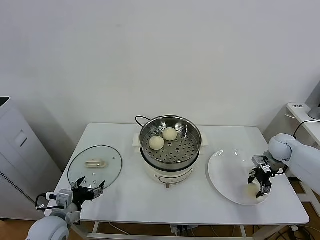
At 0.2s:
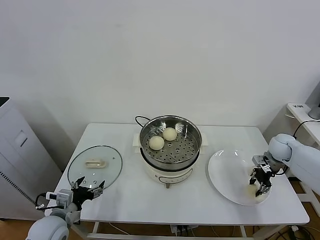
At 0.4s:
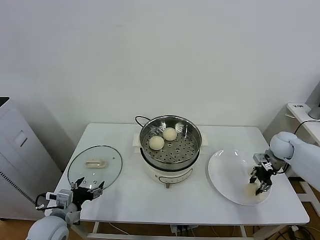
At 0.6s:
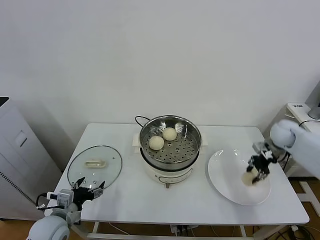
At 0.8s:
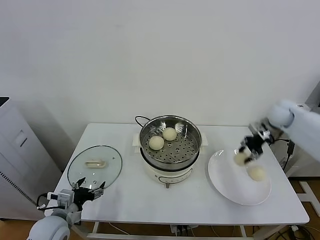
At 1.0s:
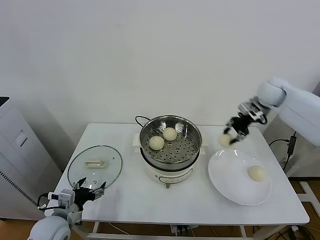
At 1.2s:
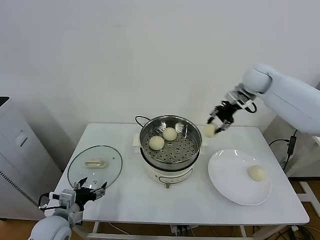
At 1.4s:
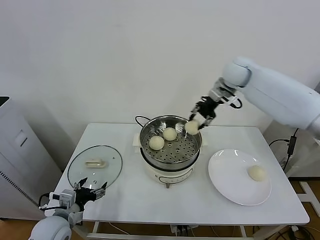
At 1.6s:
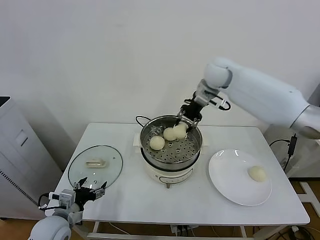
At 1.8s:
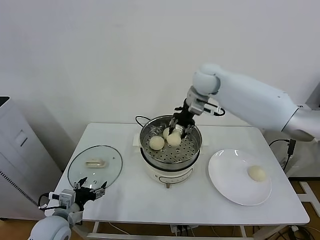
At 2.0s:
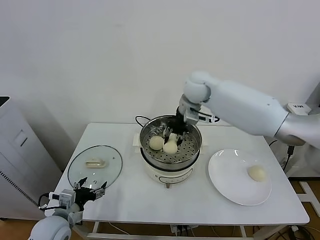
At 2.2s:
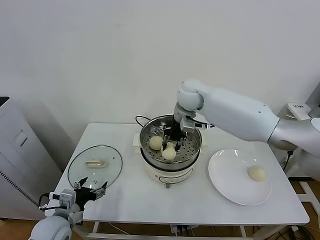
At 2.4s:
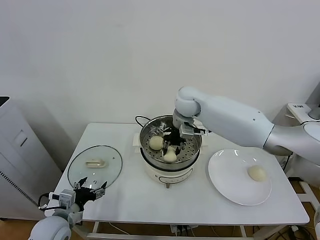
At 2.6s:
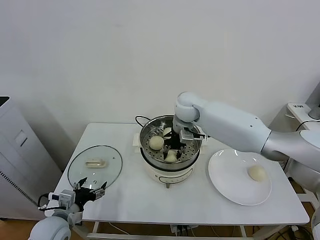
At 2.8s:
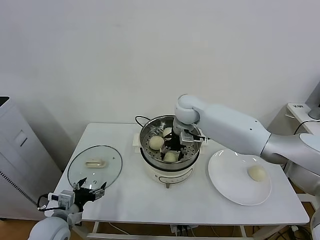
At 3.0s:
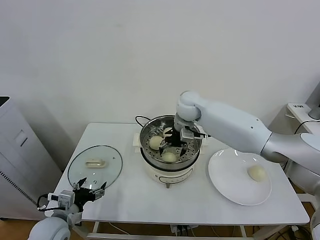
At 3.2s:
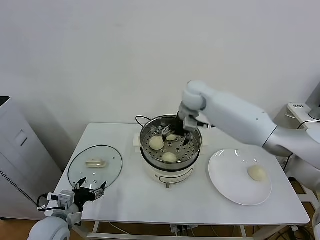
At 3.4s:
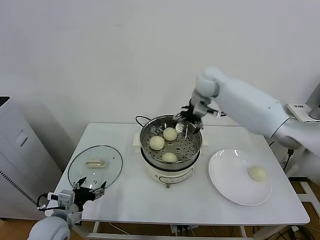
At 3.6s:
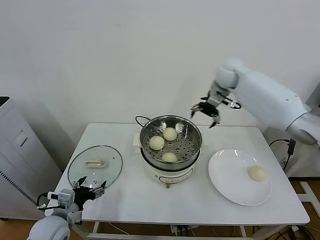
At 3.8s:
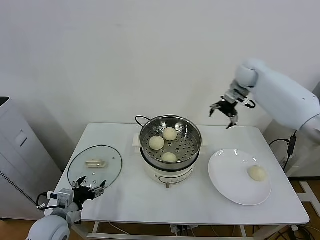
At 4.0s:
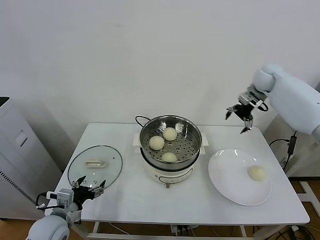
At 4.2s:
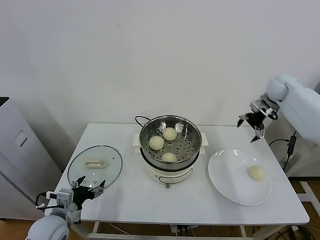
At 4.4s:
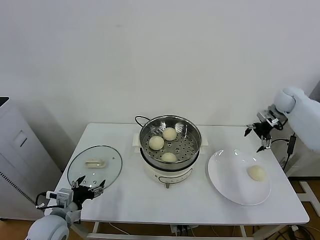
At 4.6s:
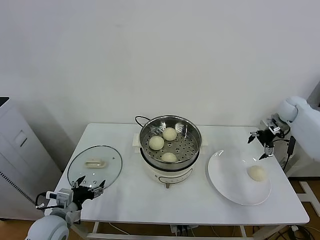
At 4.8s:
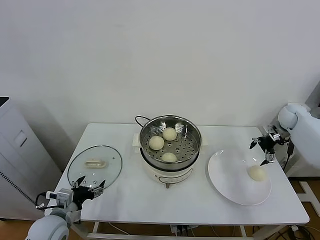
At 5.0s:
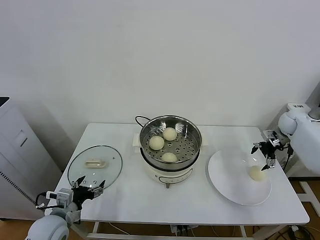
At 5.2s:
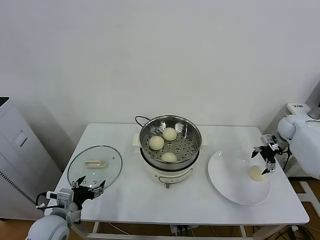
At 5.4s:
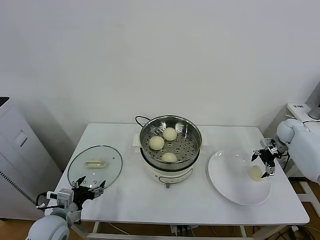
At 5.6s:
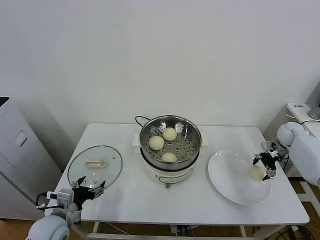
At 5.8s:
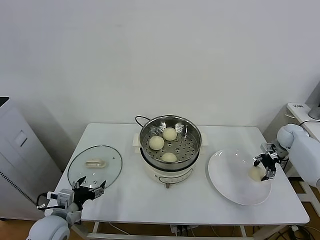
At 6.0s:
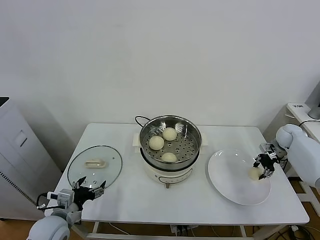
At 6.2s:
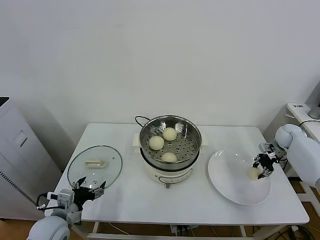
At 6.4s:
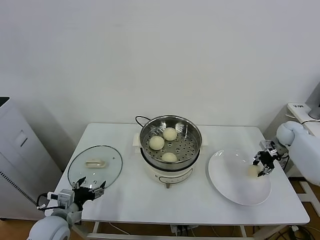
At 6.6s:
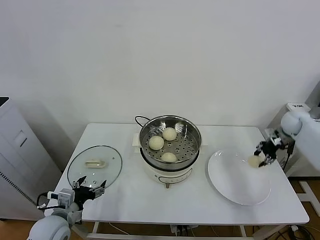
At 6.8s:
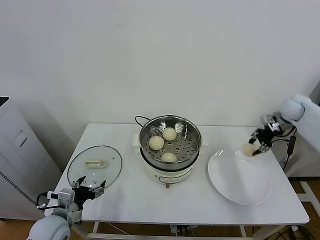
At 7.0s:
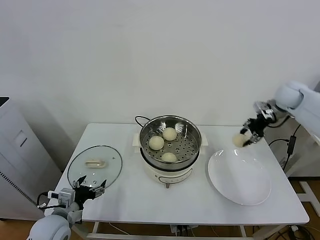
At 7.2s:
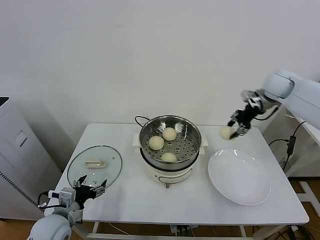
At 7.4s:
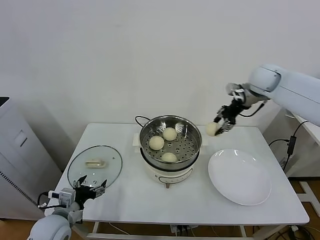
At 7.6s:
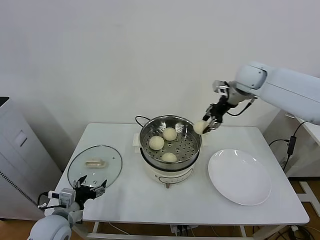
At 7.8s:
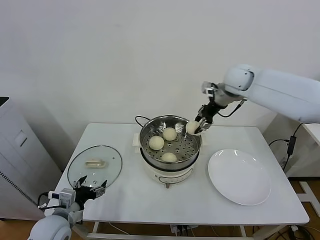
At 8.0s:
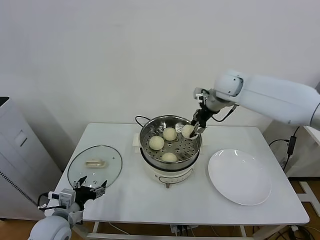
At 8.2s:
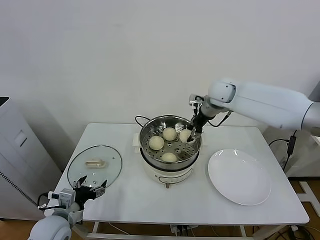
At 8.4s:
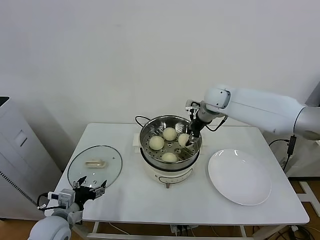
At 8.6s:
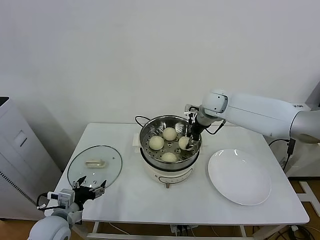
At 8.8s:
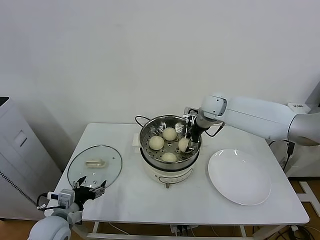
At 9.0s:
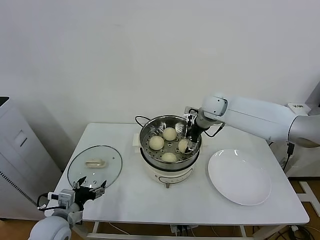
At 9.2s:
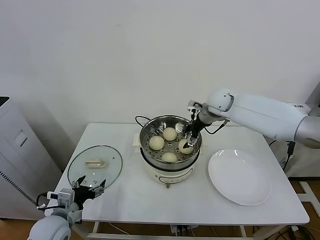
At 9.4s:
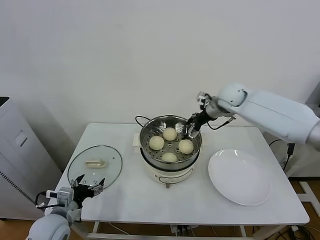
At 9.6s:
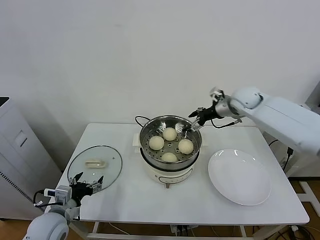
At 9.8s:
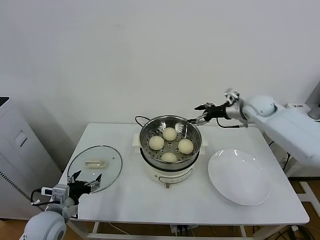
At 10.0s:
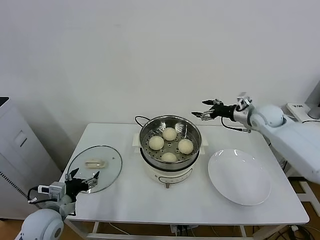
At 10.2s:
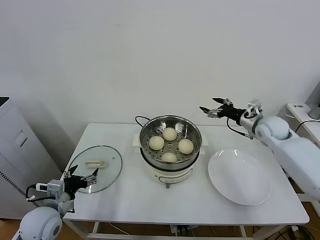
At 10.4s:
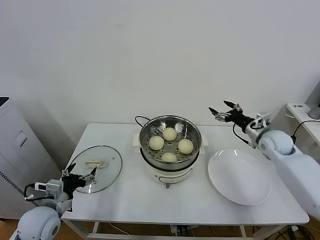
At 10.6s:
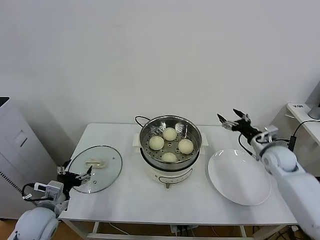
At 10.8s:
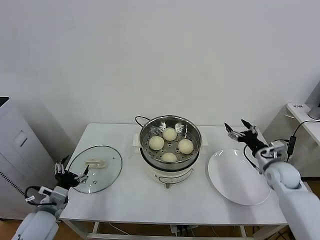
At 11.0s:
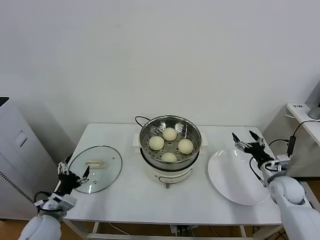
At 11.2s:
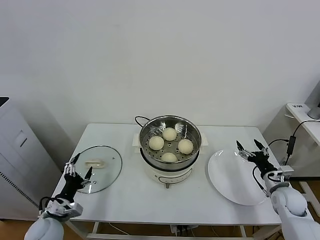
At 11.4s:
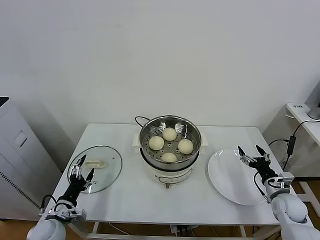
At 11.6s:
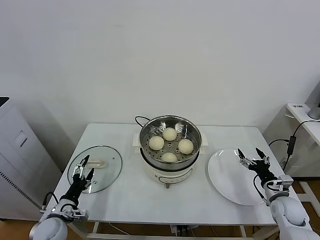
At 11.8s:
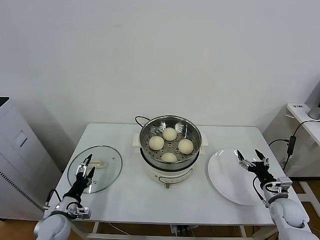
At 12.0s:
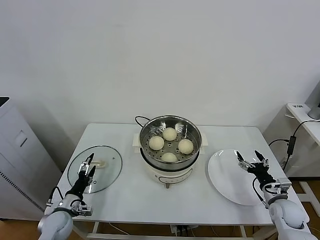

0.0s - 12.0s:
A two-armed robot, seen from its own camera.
Task of the whole recording: take steamed baozi put them in steamer.
Step, 0.2s - 3.0s: Place the baozi on the steamer with right gripper.
Step, 3.4s - 6.0s: Grasp the baozi in the plate with right gripper.
Step, 6.2s - 9.2s: Place the baozi on the steamer with right gripper.
0.0s - 1.6s: The right gripper moves to the left and upward, approximately 40 cm.
1.6s - 3.0s: The right gripper goes approximately 10 cm downward and to the left, and opens.
3.0s - 4.4s: The right gripper heads to the right, covering roughly 40 cm.
4.4s - 6.0s: The right gripper moves downward, approximately 15 cm, and closes.
6.0s - 7.6s: The right gripper travels upward and to the left by some 35 cm.
7.6s - 9.0s: The right gripper is displaced downward and to the left by some 15 cm, and opens its fingers.
9.0s - 10.4s: The right gripper is displaced to the right, backward and downward by some 25 cm.
10.4s - 12.0s: The right gripper is displaced downward and backward by approximately 25 cm. Meanwhile the left gripper goes about 15 cm downward.

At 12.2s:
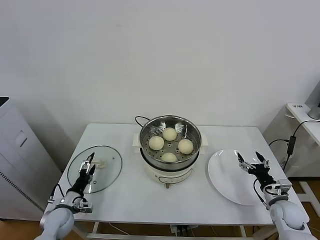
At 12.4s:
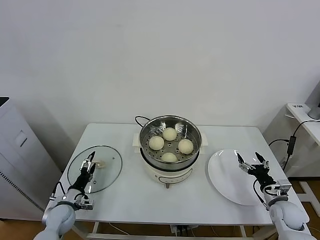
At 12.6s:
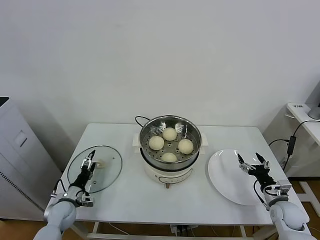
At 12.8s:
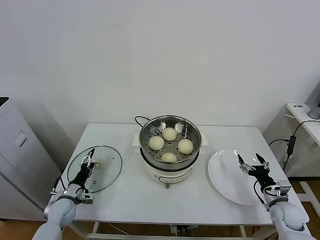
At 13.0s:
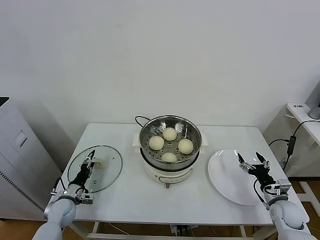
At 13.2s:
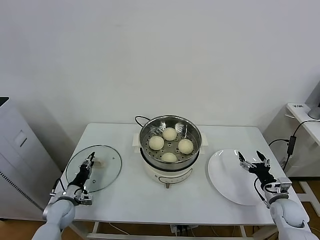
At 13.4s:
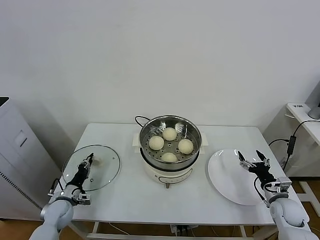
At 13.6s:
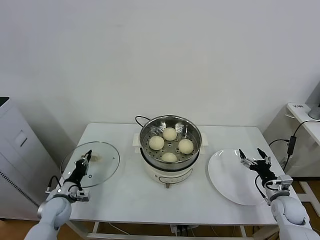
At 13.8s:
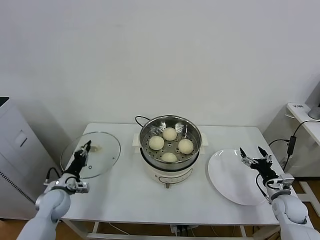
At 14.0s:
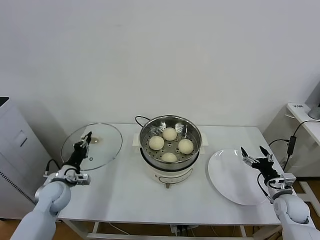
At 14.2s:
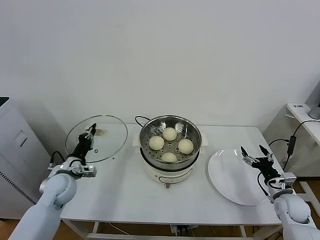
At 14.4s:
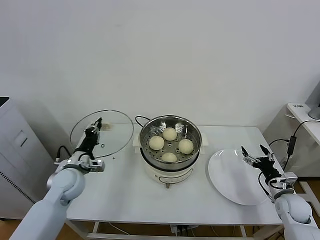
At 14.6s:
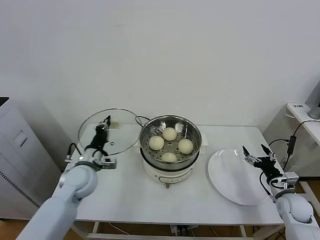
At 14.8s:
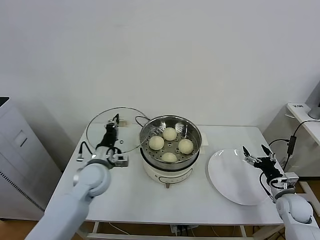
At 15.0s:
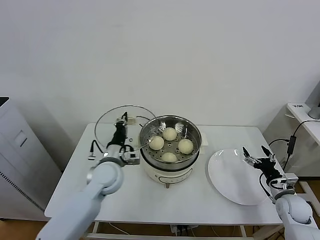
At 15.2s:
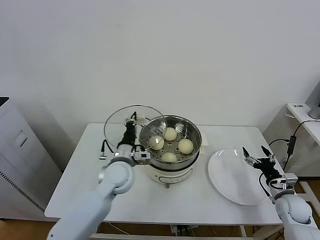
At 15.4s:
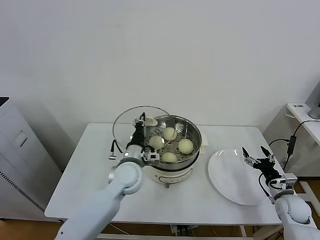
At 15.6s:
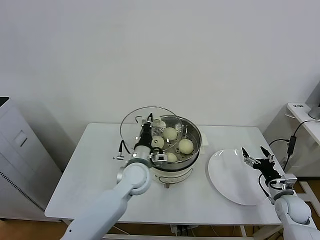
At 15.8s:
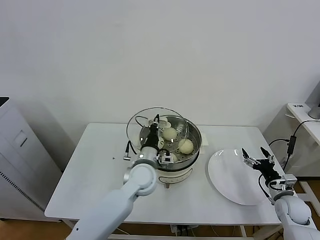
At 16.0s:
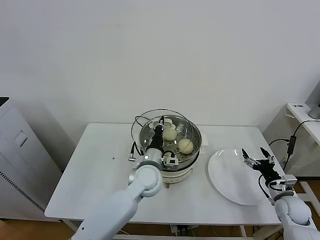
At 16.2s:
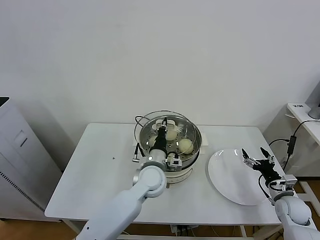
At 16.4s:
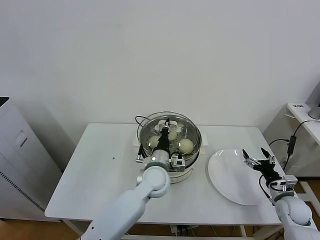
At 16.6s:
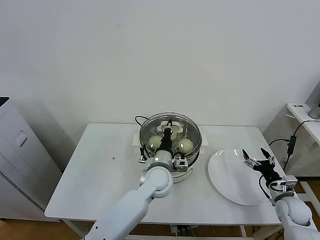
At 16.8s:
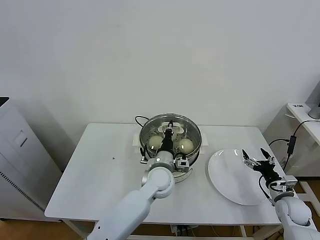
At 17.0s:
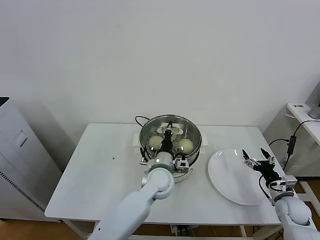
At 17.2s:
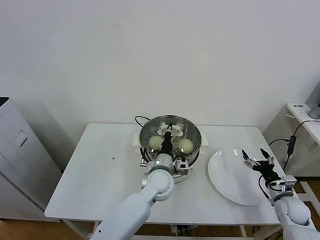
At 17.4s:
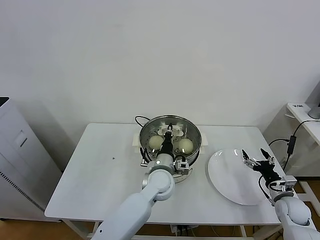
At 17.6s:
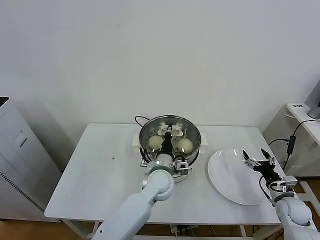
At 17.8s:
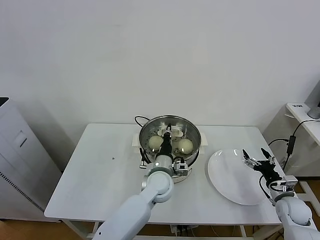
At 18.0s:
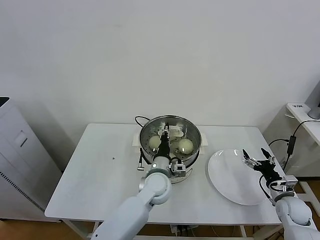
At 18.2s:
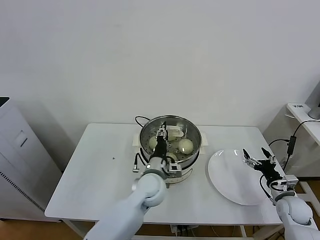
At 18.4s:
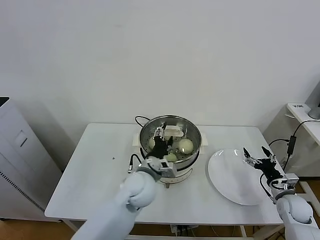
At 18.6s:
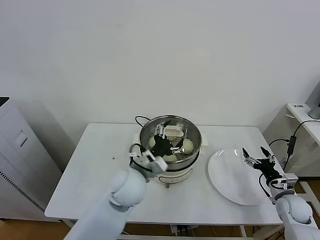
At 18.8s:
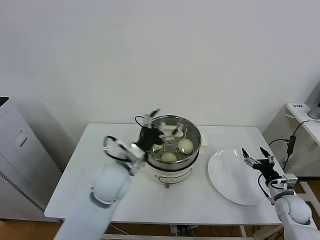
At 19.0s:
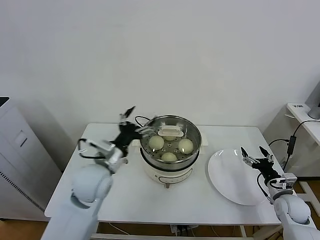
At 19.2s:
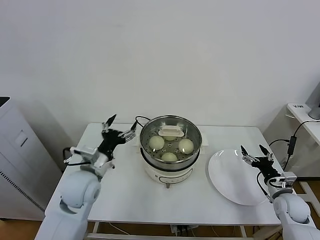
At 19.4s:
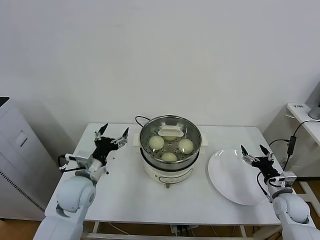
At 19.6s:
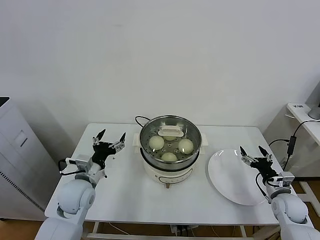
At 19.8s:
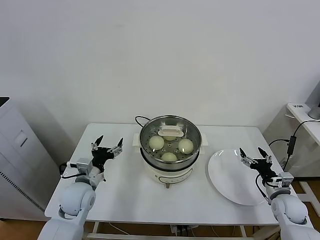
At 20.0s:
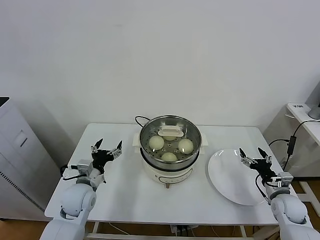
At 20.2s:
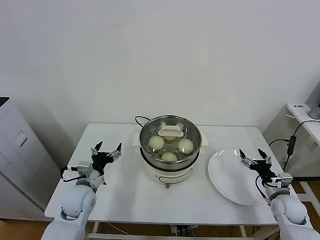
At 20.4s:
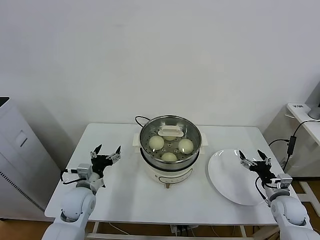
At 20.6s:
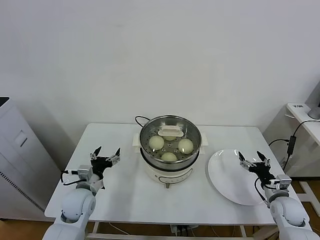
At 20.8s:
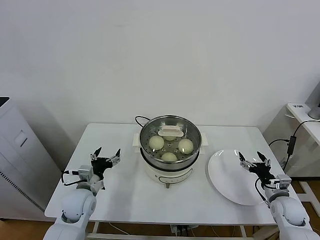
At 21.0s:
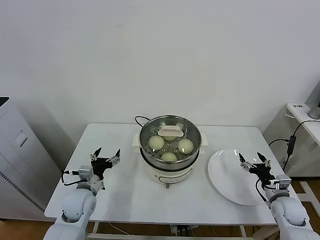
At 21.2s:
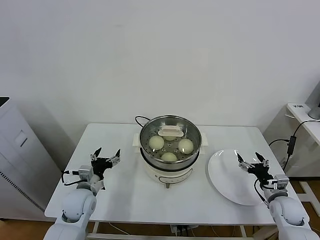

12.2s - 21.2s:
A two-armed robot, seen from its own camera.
Task of the whole recording: take steamed baozi put them in steamer.
Step, 13.8s - 18.4s: Place the pot lid on the steamer with left gripper.
12.2s - 13.8s: The left gripper changes place by roughly 5 cm, and closes up.
13.8s - 15.2s: The left gripper heads to the right and upward, covering roughly 25 cm.
15.2s - 16.6s: The left gripper moves to the right, approximately 15 cm.
16.6s - 18.2s: The left gripper opens its fingers.
18.2s - 19.8s: The left gripper is displaced to the left by some 25 cm, and opens.
19.8s - 21.2s: The left gripper travels downward by some 5 cm.

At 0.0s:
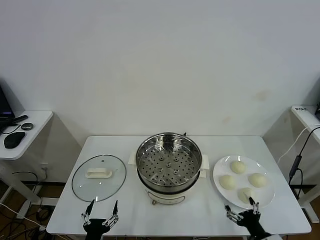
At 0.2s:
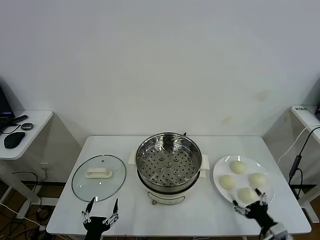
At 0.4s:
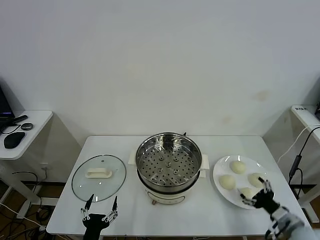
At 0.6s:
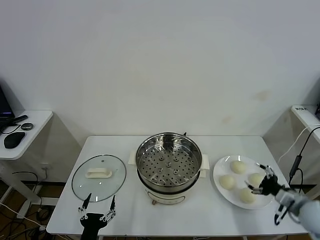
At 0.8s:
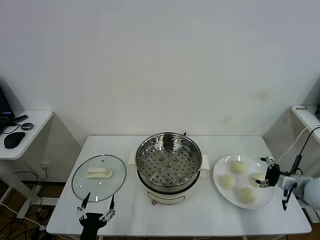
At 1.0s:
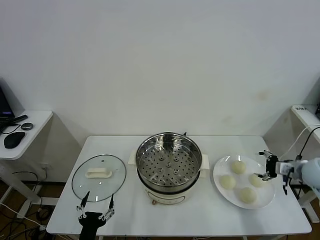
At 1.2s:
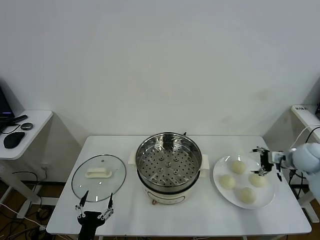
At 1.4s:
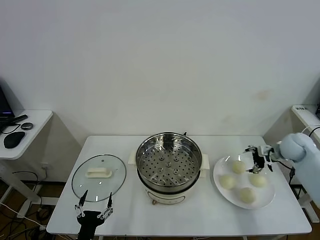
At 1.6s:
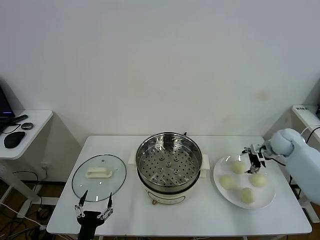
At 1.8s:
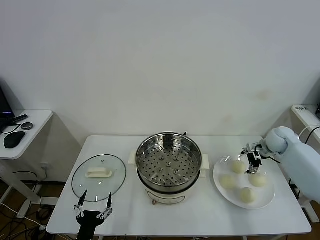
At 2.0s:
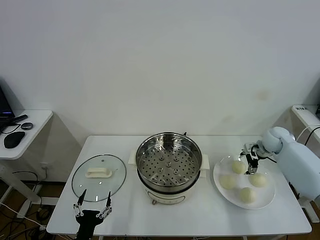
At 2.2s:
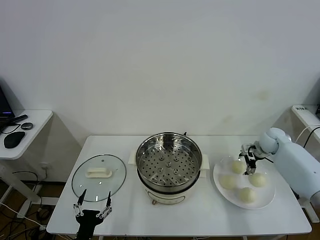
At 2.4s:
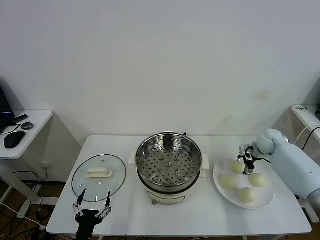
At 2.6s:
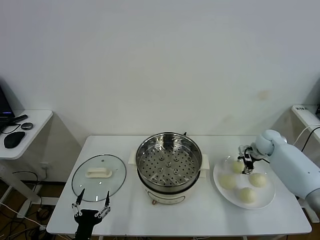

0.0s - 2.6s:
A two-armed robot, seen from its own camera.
Task of the whole recording: take steamed baozi put them in steamer.
1.2s - 2.6s: The right gripper travels forward, downward and to the left by about 15 cm, and closes up.
